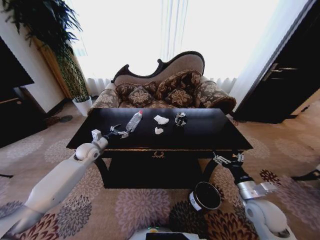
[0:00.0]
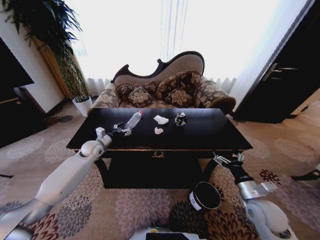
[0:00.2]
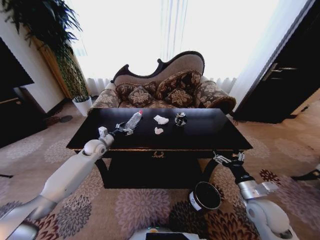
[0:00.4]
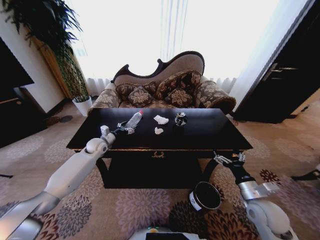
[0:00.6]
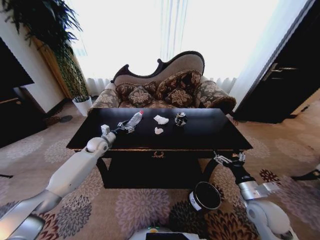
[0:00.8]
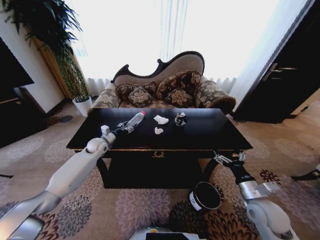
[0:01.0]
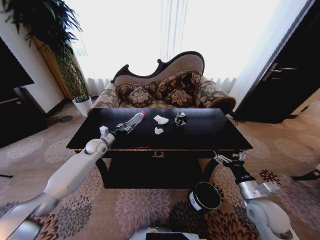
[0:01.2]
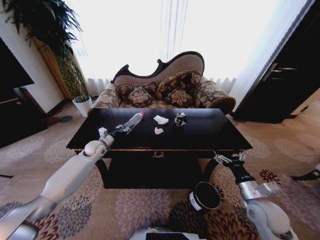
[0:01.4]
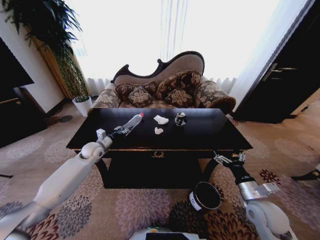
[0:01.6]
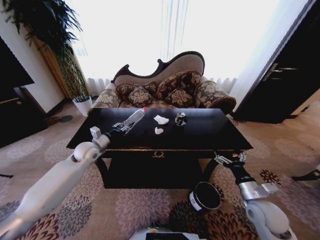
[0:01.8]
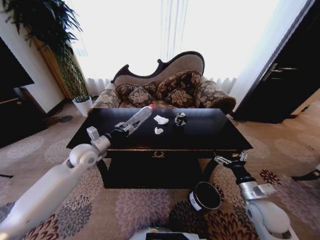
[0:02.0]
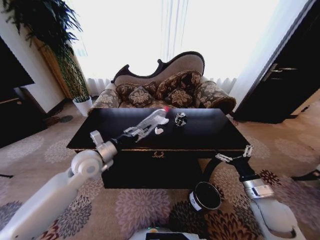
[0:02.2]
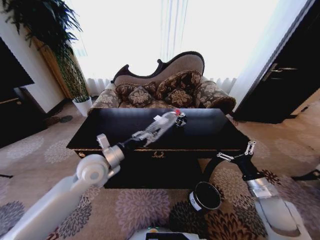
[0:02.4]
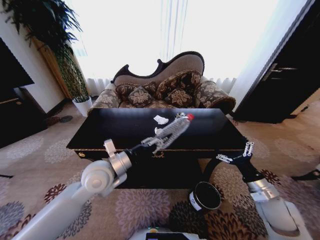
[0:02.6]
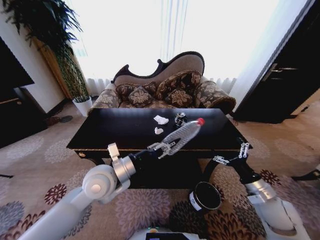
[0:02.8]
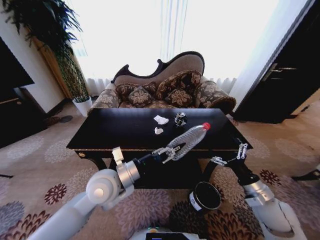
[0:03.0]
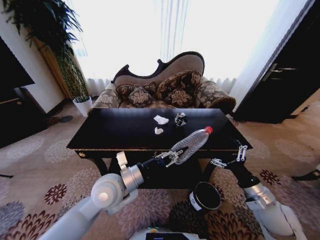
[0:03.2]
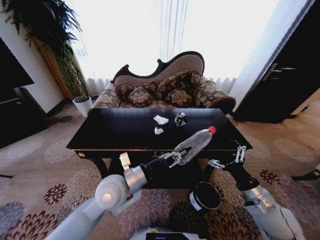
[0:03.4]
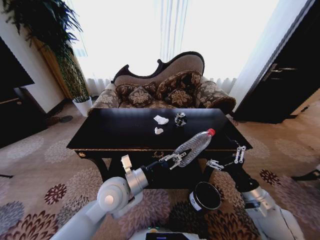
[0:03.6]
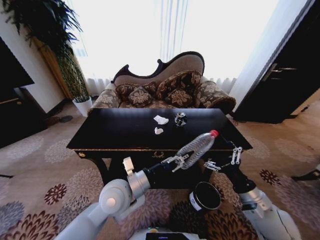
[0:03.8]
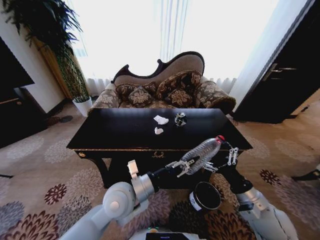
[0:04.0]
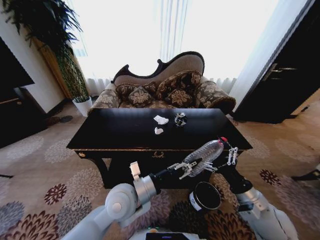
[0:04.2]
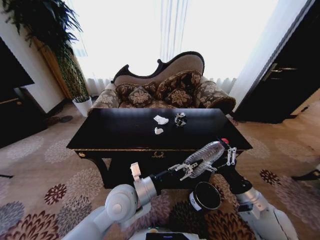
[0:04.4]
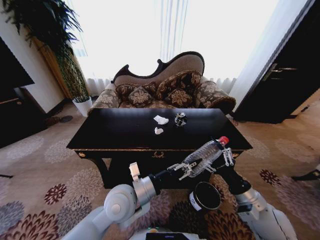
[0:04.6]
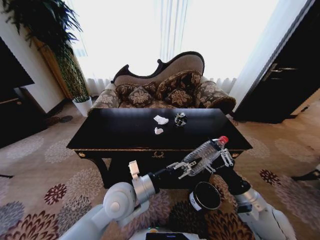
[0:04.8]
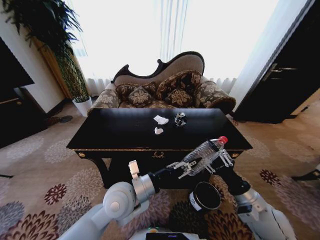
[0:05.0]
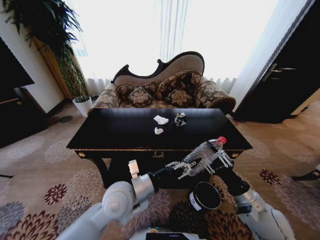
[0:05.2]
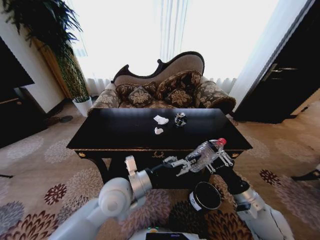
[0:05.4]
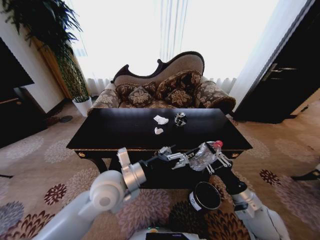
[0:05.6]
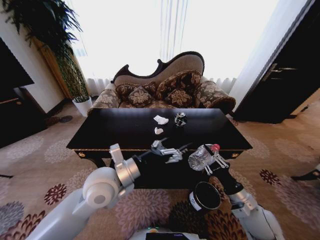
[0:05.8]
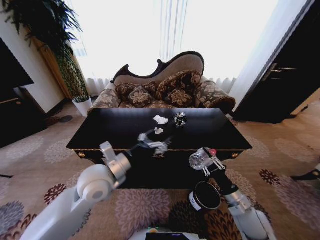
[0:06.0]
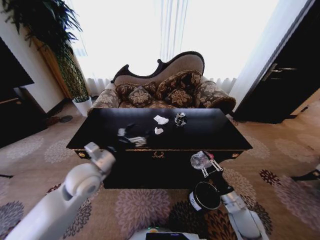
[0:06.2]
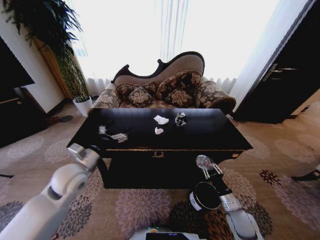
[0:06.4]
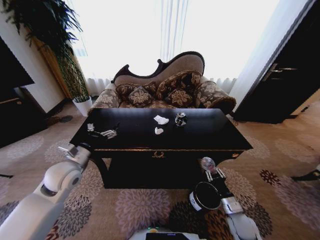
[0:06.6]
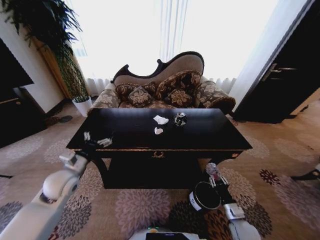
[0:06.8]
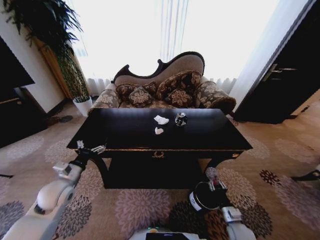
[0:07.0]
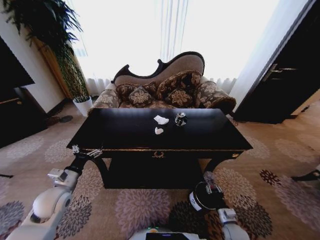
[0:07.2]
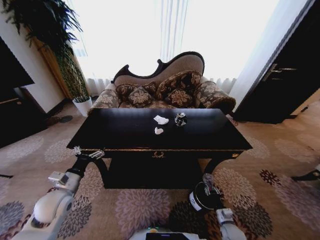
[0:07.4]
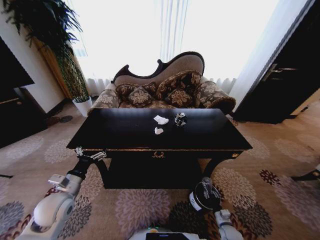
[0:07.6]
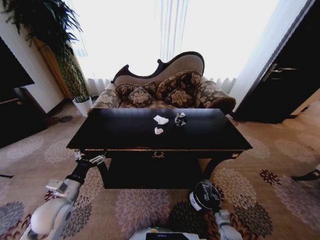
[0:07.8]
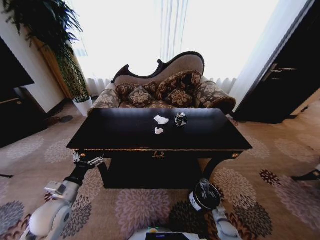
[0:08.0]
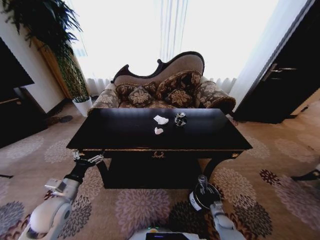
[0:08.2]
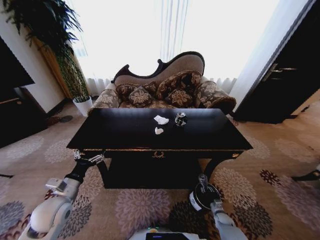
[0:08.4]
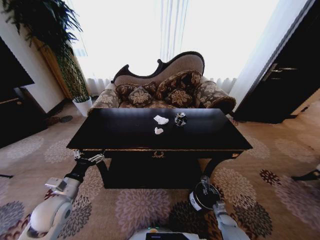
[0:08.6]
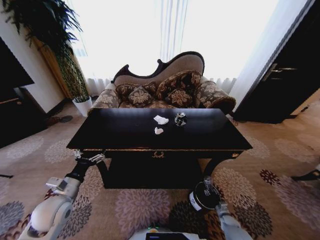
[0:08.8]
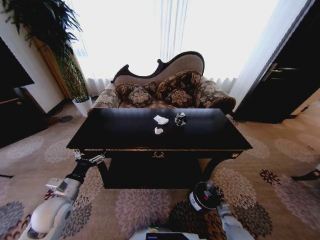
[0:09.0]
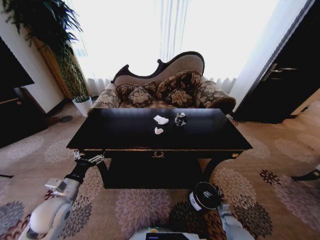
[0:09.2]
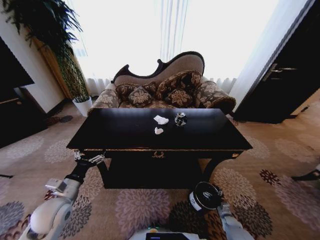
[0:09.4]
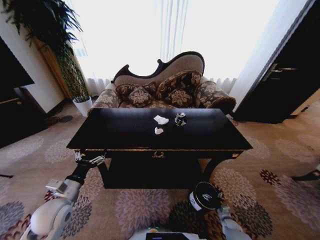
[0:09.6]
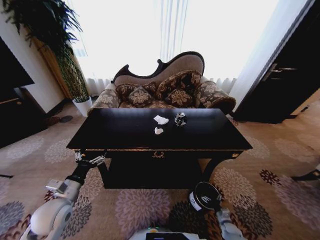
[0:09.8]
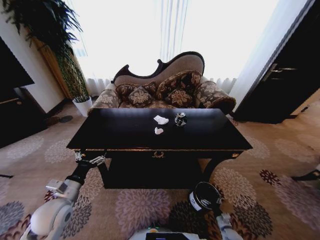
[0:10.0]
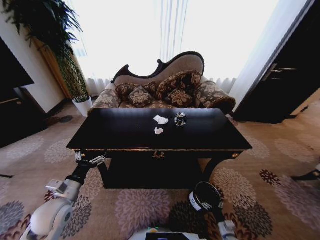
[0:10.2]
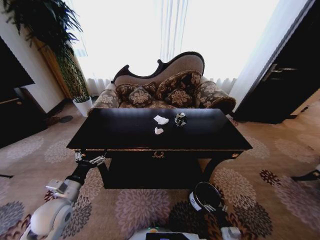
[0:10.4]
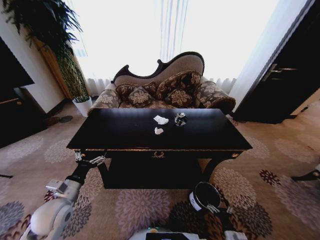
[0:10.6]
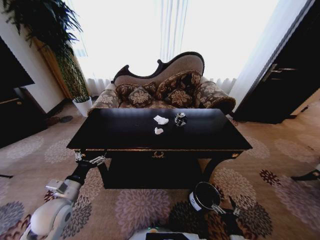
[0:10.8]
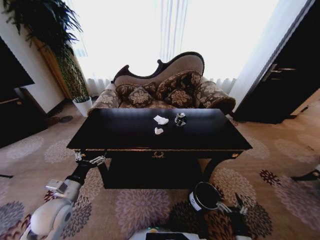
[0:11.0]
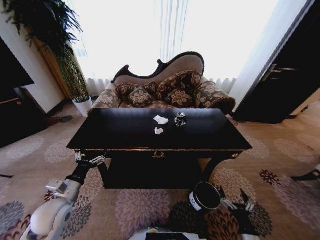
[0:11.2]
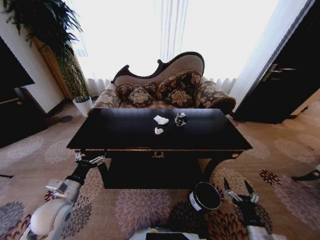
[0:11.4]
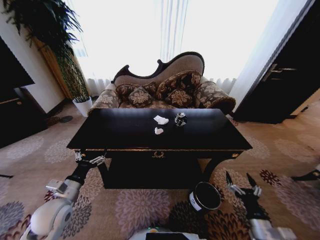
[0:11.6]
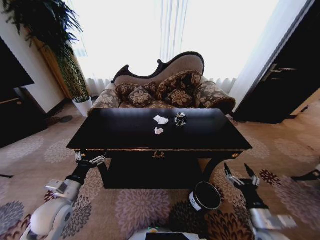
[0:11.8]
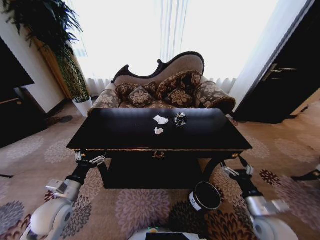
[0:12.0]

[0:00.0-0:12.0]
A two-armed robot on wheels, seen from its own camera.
Task of the whole recording: Move to the front of the table and place the trash on the table into the trash bin.
0:00.0 to 0:01.6: The left gripper closes its fingers.
0:01.6 to 0:03.0: The left gripper is displaced backward, to the right and upward by approximately 30 cm.
0:03.0 to 0:04.4: The right gripper shifts by approximately 5 cm. The left gripper heads to the right, covering about 5 cm.
0:04.4 to 0:06.0: The right gripper is displaced downward by approximately 5 cm, and closes its fingers. Meanwhile the left gripper shifts some 10 cm to the left and upward, and opens.
0:06.0 to 0:07.6: The right gripper moves downward, some 25 cm; the left gripper heads to the left and downward, covering about 20 cm.
0:07.6 to 0:09.0: The right gripper goes roughly 10 cm to the right and downward, and opens its fingers.
0:09.0 to 0:10.4: The right gripper heads backward and to the left, covering approximately 15 cm, and opens up.
0:10.4 to 0:12.0: The right gripper is displaced upward by about 30 cm.

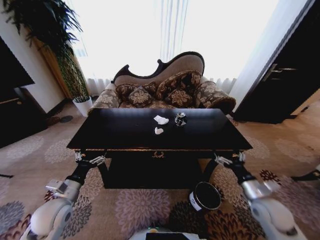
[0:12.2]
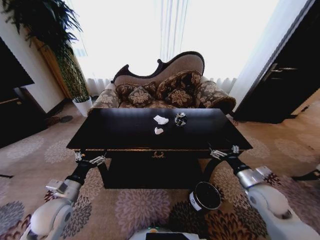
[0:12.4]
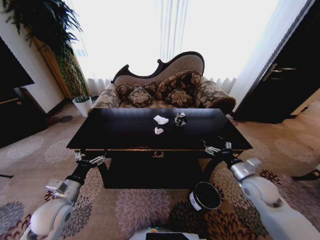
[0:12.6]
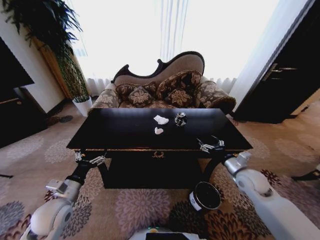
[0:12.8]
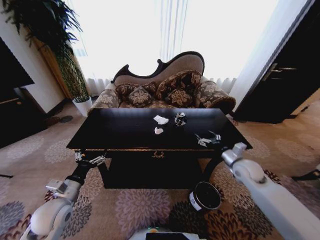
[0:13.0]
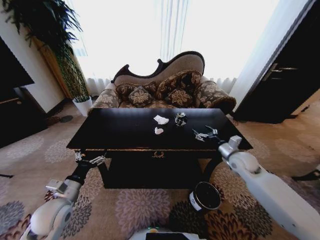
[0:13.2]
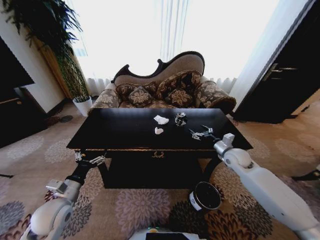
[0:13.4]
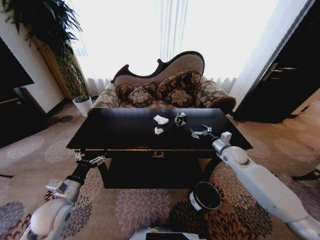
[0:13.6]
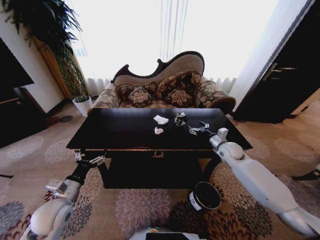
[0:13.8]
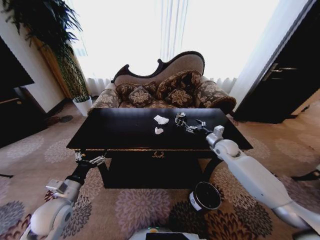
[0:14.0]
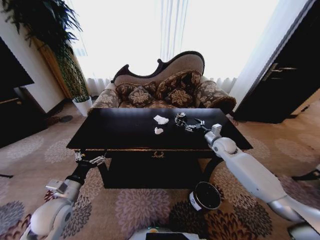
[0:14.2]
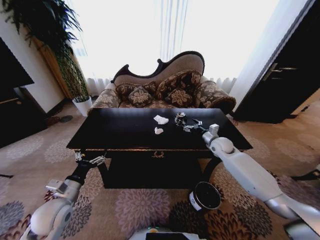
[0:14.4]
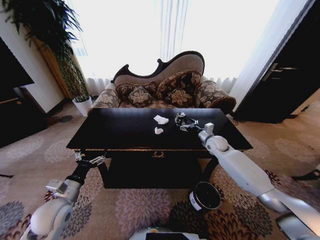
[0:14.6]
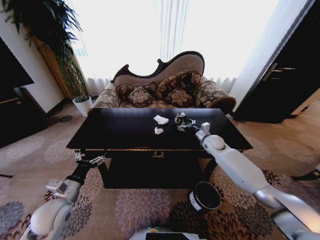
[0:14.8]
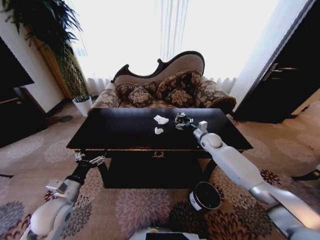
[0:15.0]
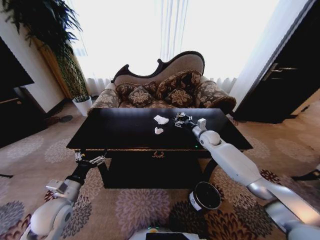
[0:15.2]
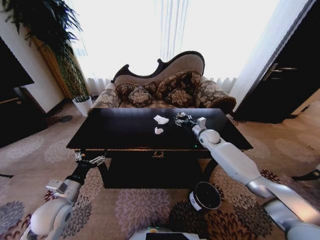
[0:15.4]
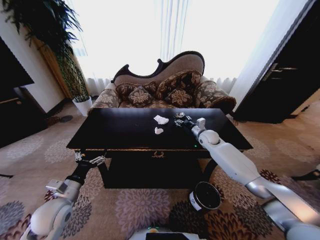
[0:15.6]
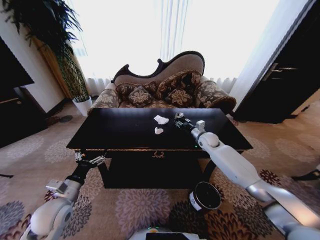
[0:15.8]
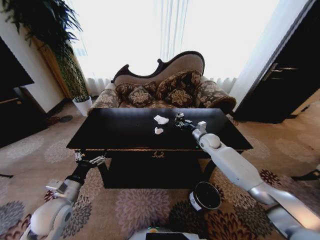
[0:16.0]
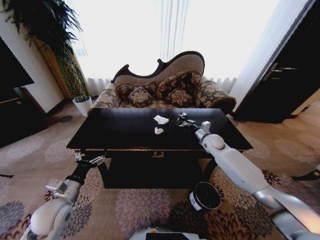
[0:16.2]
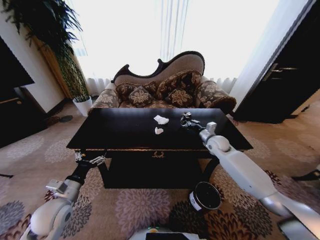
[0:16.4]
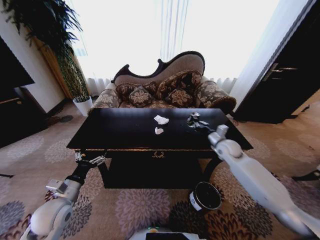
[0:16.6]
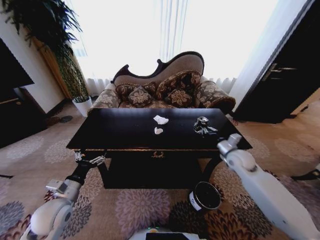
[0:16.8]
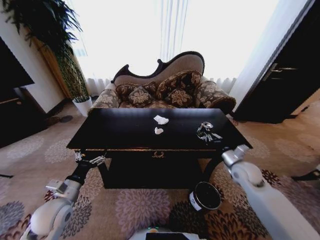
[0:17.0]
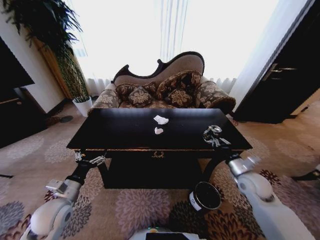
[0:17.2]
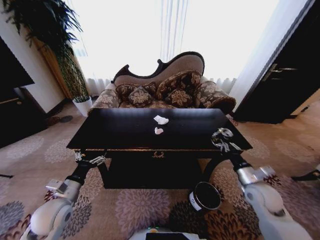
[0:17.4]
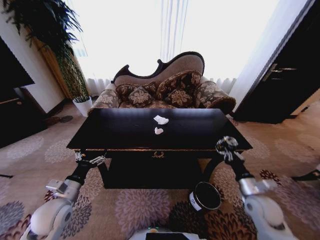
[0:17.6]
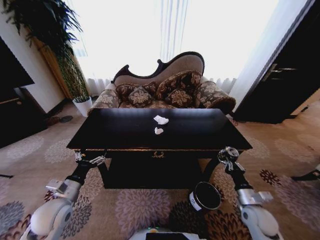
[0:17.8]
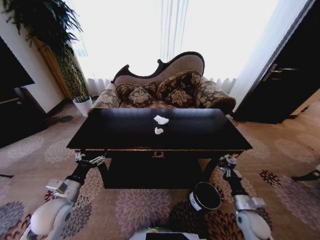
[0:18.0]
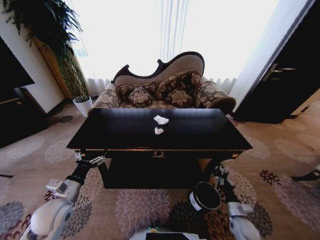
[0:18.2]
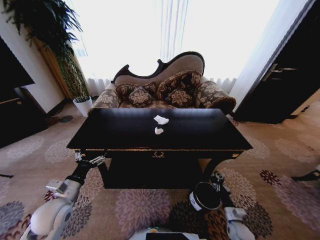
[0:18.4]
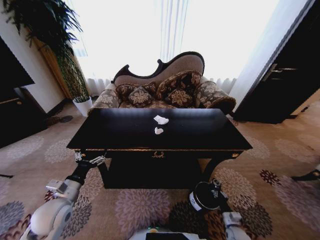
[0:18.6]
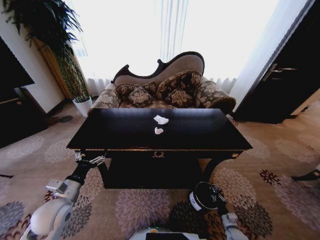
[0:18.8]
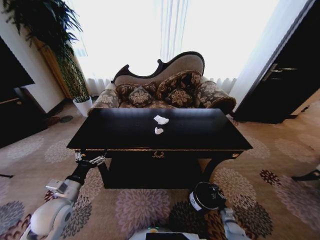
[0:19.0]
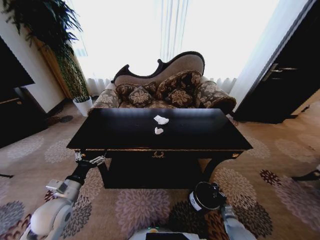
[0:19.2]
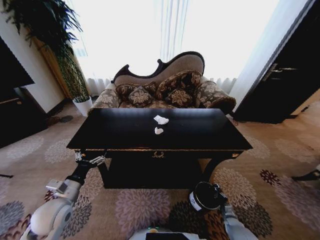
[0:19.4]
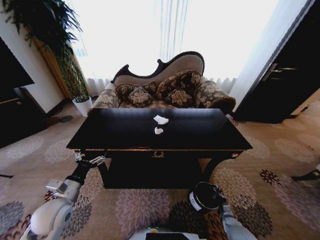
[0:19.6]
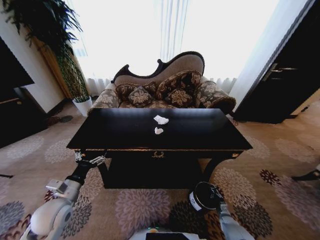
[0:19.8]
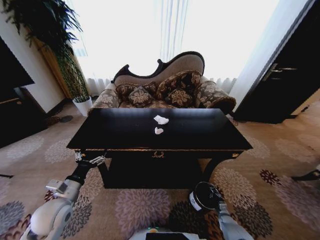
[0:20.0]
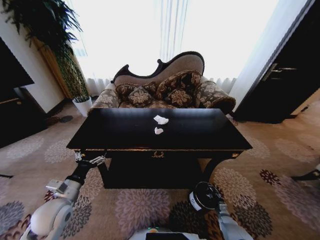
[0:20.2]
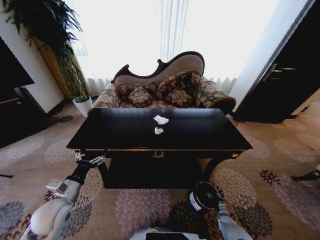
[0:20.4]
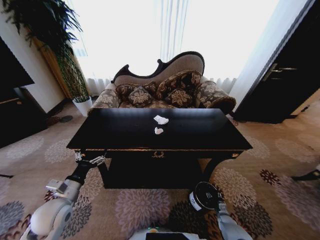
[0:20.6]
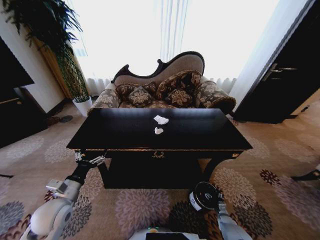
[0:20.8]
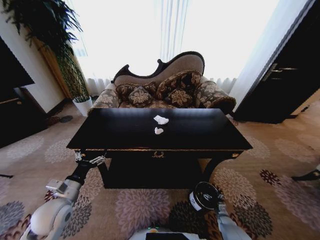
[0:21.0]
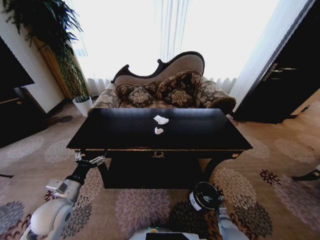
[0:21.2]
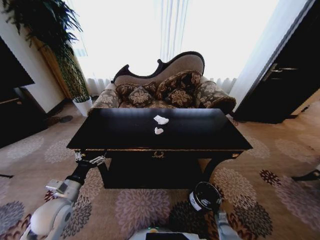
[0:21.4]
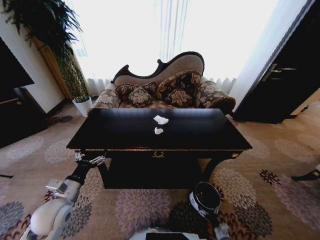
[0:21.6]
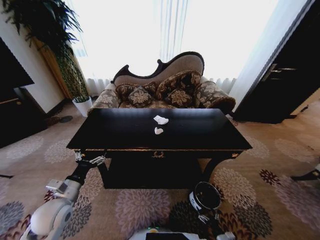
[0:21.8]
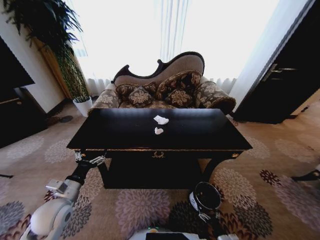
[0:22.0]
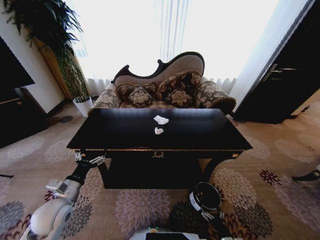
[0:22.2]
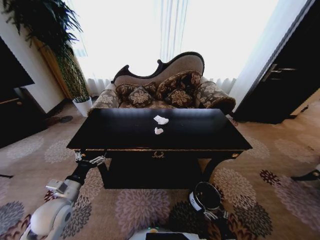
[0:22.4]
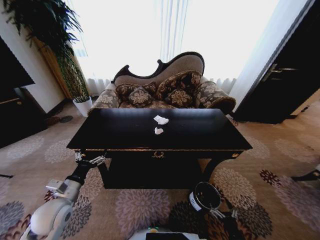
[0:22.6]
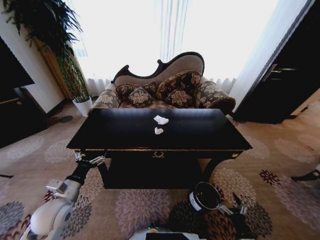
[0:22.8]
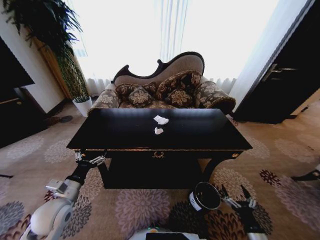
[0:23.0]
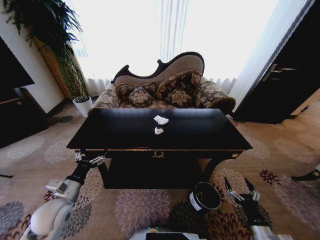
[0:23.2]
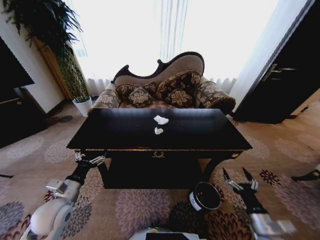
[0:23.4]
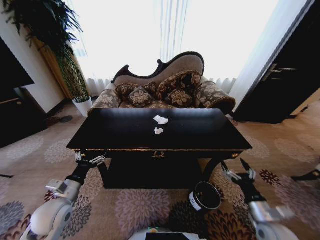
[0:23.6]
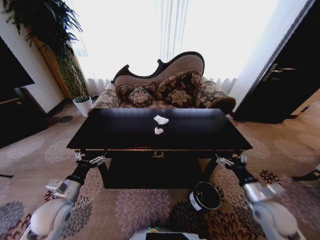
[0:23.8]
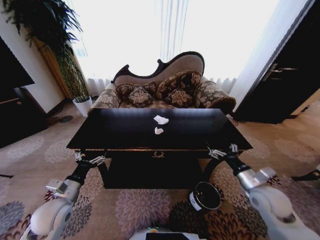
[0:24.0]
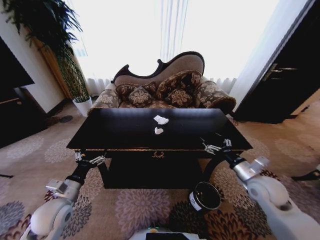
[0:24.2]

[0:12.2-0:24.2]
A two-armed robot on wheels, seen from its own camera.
Task of the whole recording: Move to the front of the table and place the trash on the table into the trash bin.
0:12.2 to 0:13.8: The right gripper heads forward, covering roughly 25 cm.
0:13.8 to 0:15.2: The right gripper goes roughly 10 cm forward and to the left.
0:15.2 to 0:16.6: The right gripper is displaced backward by about 10 cm, and closes its fingers.
0:16.6 to 0:18.2: The right gripper goes some 35 cm backward and downward.
0:18.2 to 0:19.8: The right gripper is displaced downward by about 20 cm.
0:21.2 to 0:22.6: The right gripper heads backward and upward, covering roughly 20 cm.
0:22.6 to 0:24.2: The right gripper is displaced upward and forward by some 35 cm.
